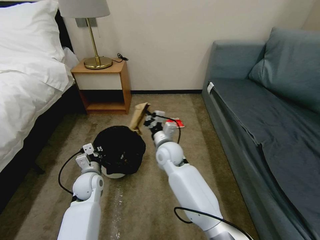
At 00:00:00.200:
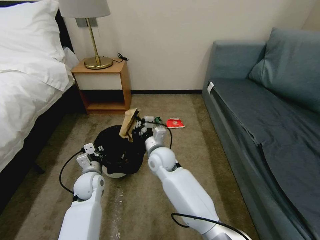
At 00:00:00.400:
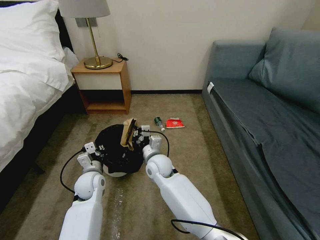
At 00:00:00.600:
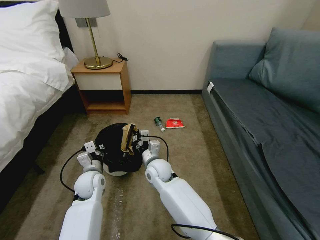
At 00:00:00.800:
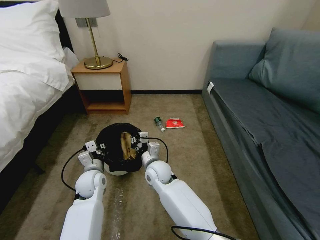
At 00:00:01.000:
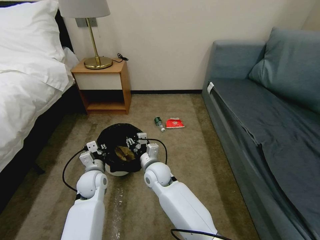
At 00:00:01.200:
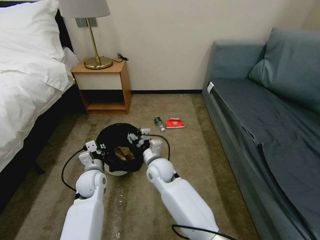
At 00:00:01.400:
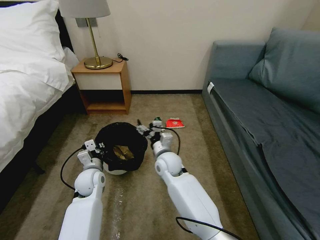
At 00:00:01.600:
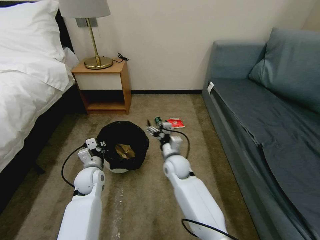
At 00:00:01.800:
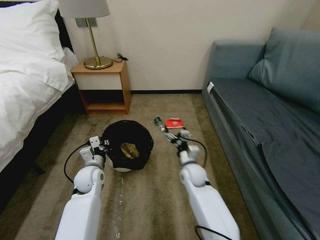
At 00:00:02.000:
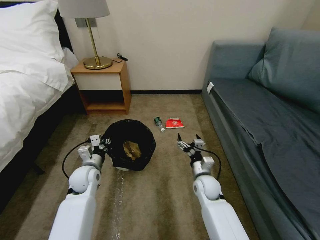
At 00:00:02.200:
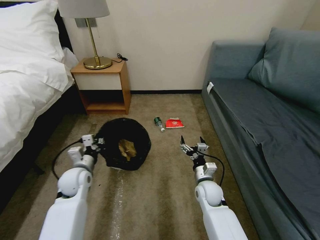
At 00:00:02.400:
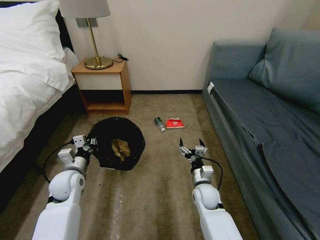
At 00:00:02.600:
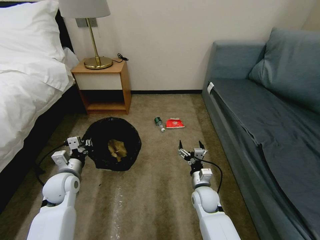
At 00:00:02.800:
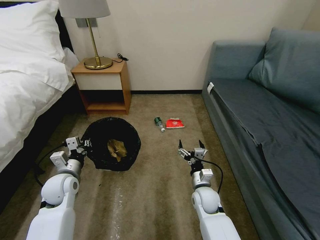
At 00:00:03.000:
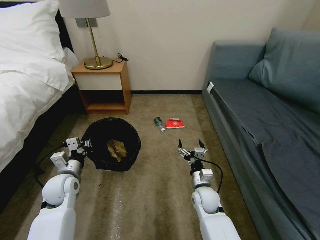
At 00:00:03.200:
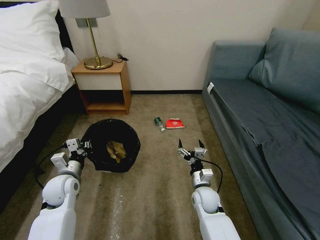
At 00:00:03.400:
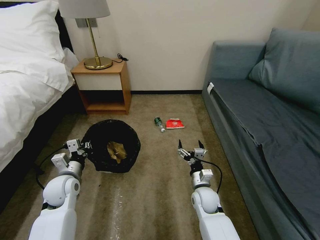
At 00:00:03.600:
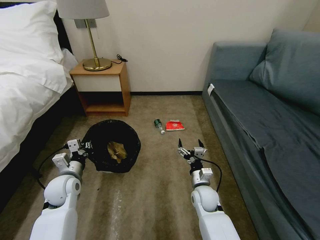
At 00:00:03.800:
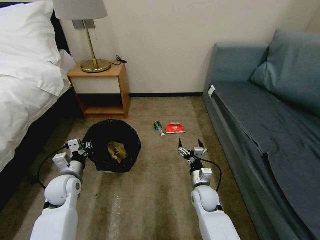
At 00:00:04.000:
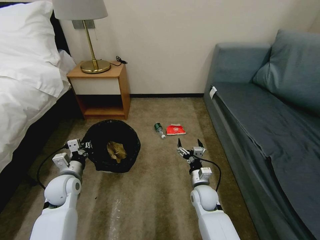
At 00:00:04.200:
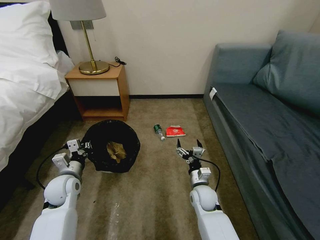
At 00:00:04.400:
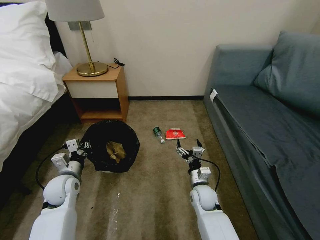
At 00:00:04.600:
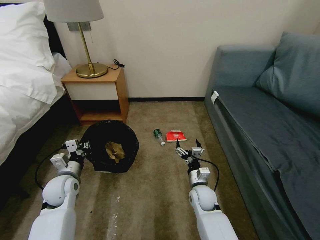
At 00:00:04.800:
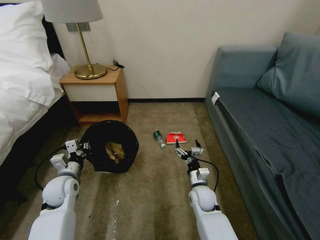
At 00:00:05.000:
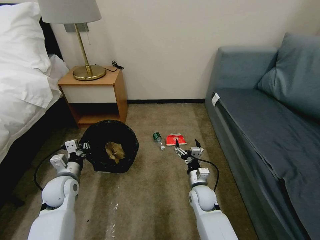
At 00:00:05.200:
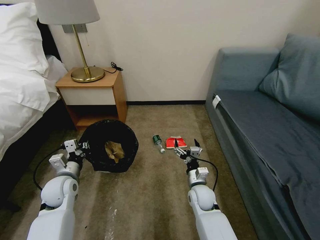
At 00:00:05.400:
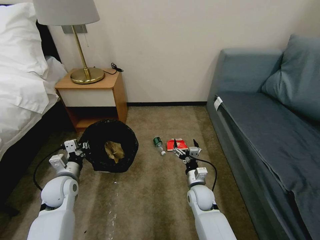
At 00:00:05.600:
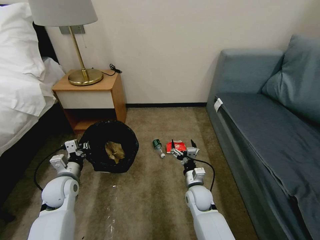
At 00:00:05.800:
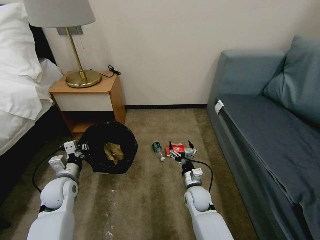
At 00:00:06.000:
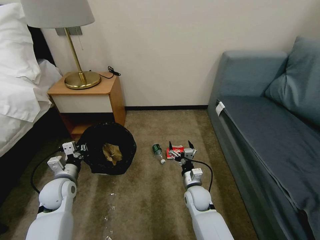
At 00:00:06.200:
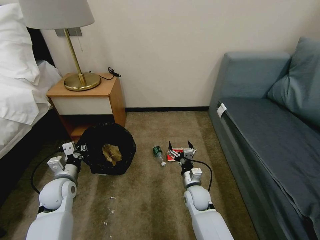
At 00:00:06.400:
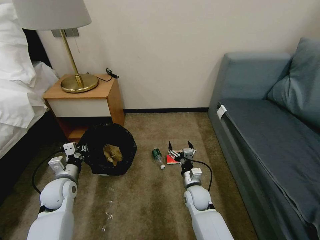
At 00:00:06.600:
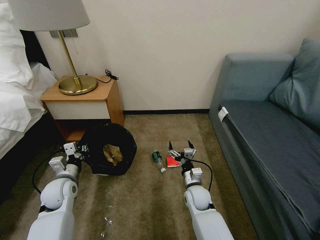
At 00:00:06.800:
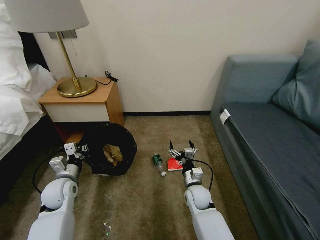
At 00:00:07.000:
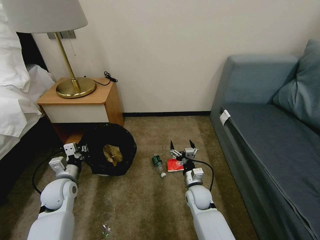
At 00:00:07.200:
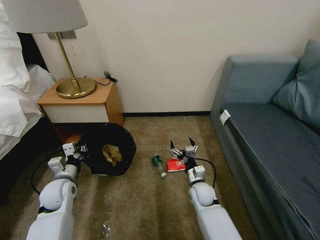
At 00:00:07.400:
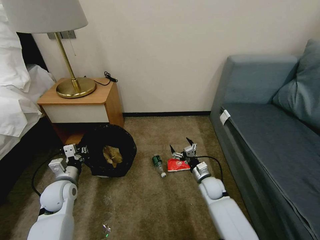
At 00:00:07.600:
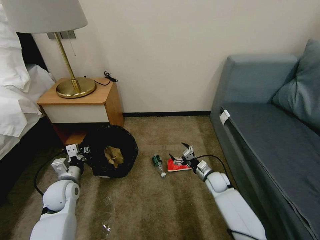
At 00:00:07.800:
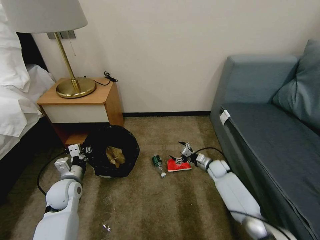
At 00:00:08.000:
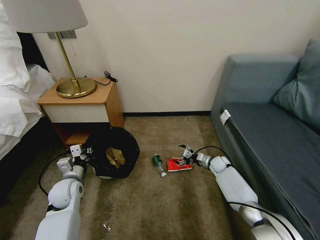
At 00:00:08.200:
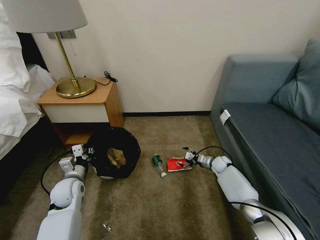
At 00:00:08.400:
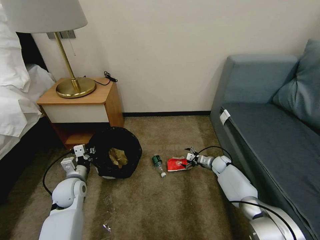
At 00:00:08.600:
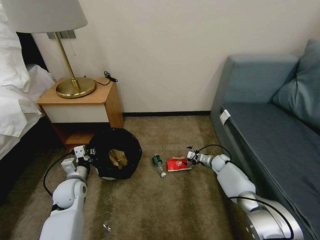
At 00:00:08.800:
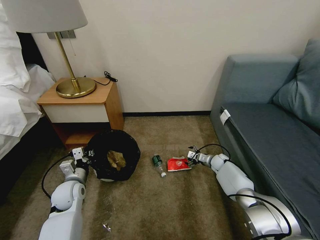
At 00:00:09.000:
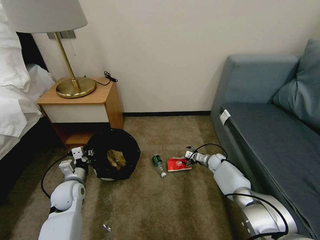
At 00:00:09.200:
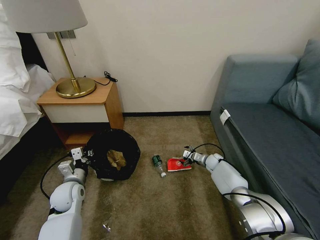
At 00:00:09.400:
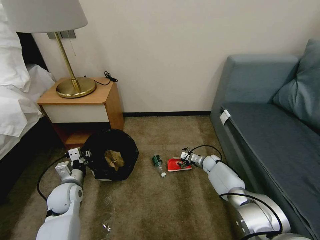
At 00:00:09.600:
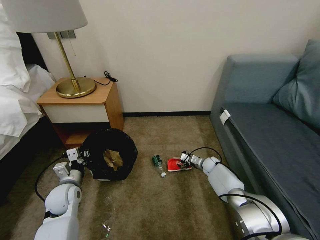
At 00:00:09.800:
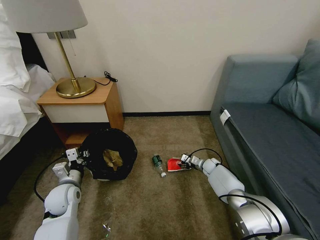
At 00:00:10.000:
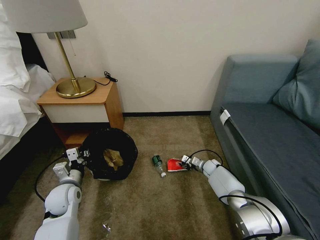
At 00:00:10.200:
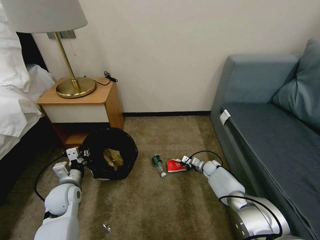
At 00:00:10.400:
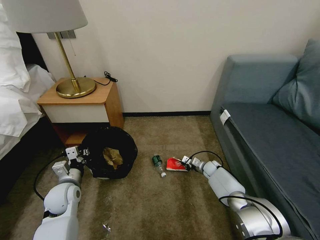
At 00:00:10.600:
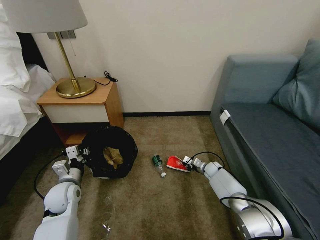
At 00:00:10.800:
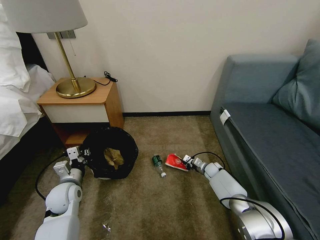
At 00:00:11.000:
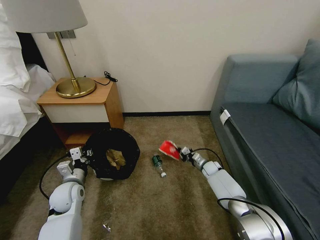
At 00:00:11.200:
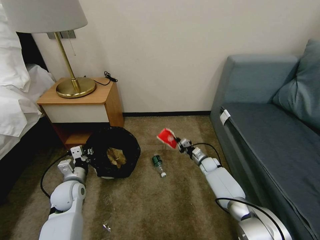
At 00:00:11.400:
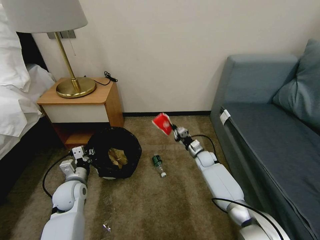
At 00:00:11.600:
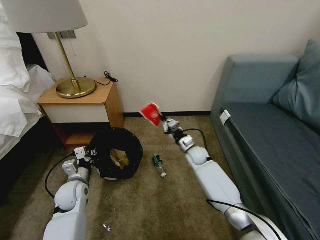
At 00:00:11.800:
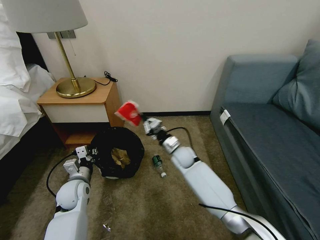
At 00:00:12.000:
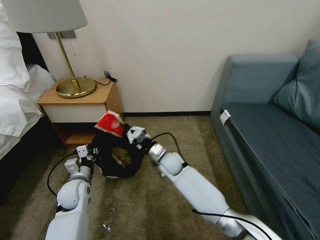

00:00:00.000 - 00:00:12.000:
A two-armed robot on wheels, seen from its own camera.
Task of the whole recording: Pick up the trash bin, then pick up the garbage on the floor and place it into the trash bin.
00:00:00.000 - 00:00:01.600: The right gripper travels downward by some 5 cm, and opens.
00:00:01.600 - 00:00:03.000: The right gripper goes approximately 15 cm to the right, backward and downward. Meanwhile the left gripper is displaced to the left by approximately 5 cm.
00:00:03.000 - 00:00:04.400: The two grippers keep their place.
00:00:06.000 - 00:00:07.600: The right gripper heads to the right and forward, covering about 15 cm.
00:00:07.600 - 00:00:09.000: The right gripper heads forward and to the right, covering about 15 cm.
00:00:09.000 - 00:00:10.400: The right gripper closes.
00:00:10.400 - 00:00:12.000: The right gripper travels to the left and upward by approximately 30 cm.

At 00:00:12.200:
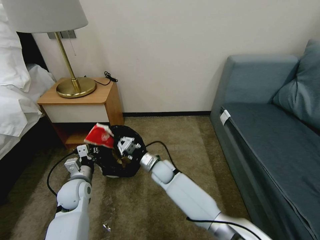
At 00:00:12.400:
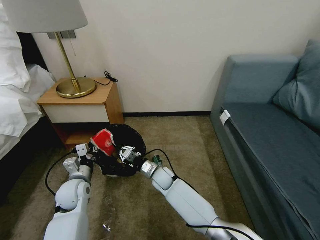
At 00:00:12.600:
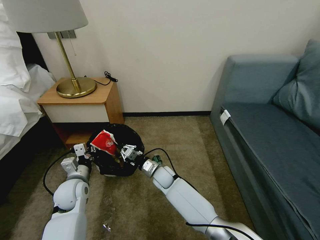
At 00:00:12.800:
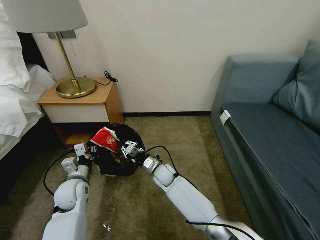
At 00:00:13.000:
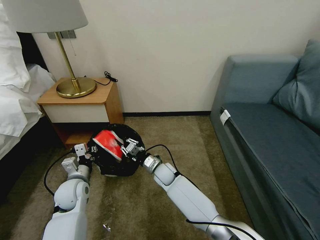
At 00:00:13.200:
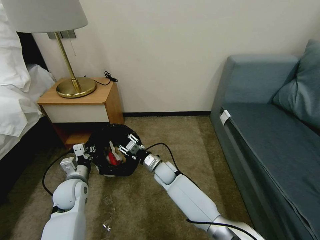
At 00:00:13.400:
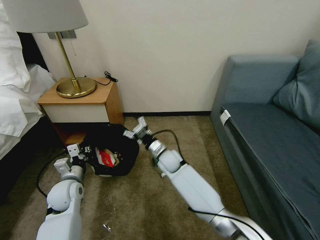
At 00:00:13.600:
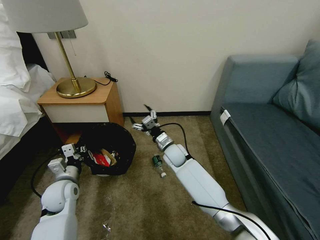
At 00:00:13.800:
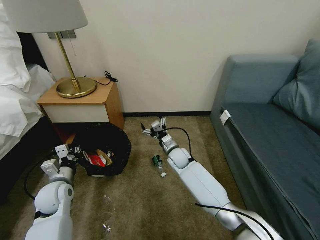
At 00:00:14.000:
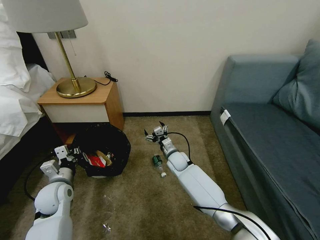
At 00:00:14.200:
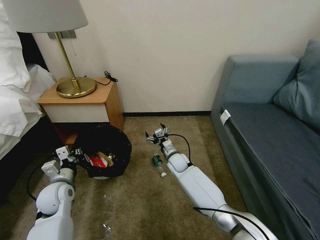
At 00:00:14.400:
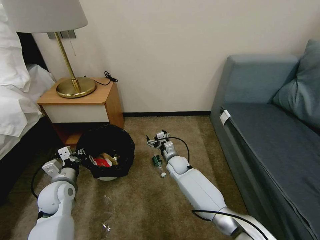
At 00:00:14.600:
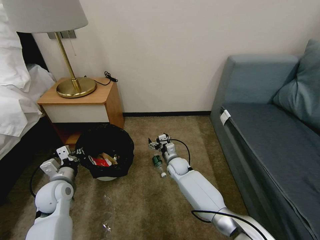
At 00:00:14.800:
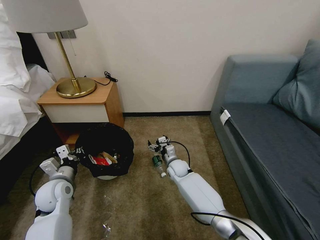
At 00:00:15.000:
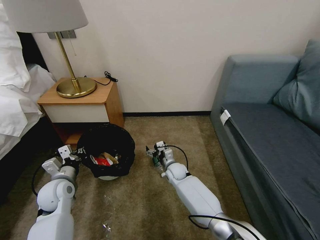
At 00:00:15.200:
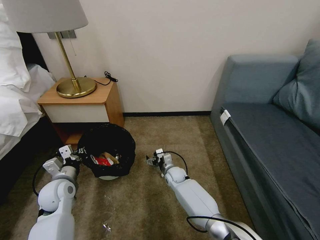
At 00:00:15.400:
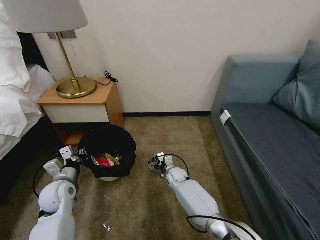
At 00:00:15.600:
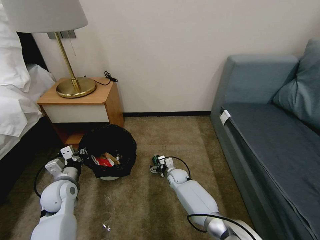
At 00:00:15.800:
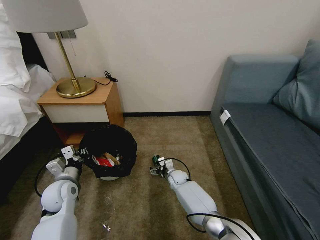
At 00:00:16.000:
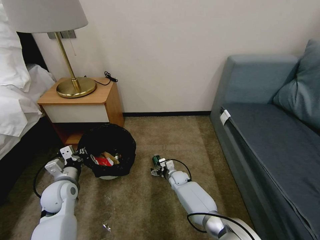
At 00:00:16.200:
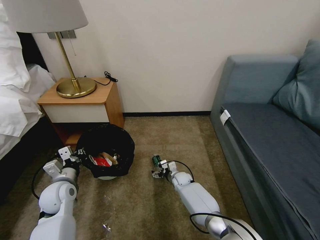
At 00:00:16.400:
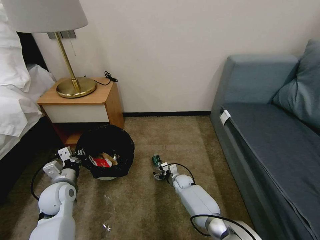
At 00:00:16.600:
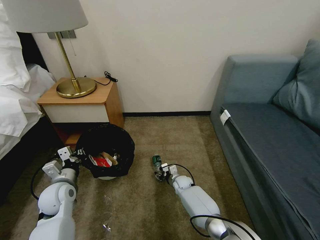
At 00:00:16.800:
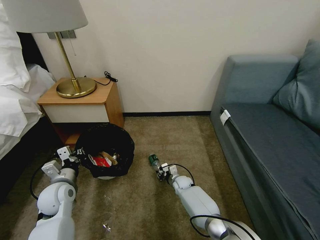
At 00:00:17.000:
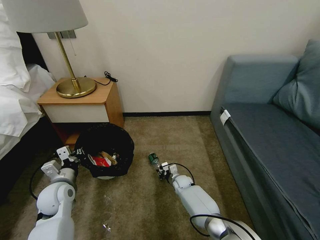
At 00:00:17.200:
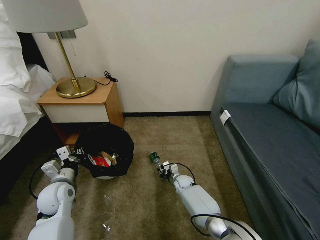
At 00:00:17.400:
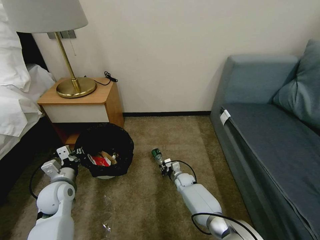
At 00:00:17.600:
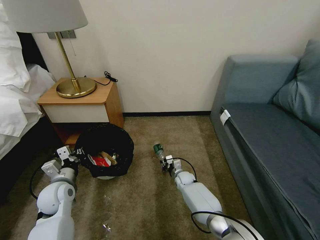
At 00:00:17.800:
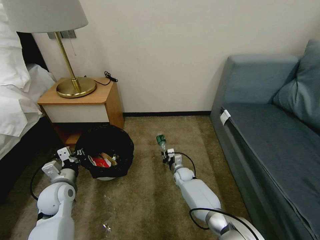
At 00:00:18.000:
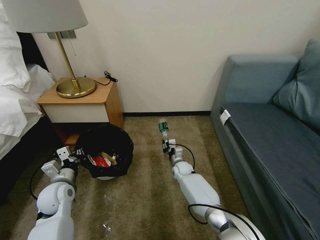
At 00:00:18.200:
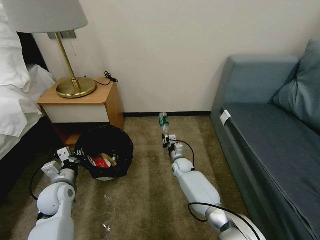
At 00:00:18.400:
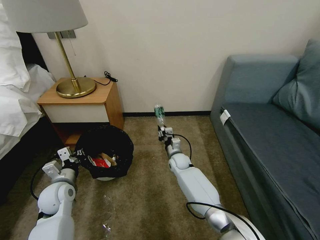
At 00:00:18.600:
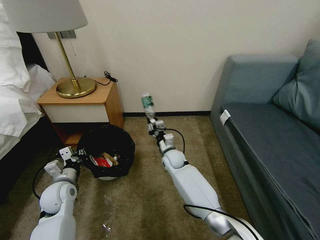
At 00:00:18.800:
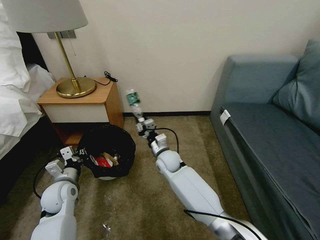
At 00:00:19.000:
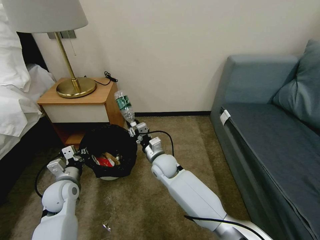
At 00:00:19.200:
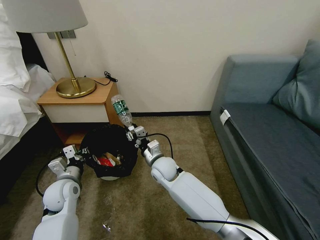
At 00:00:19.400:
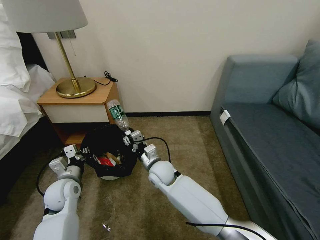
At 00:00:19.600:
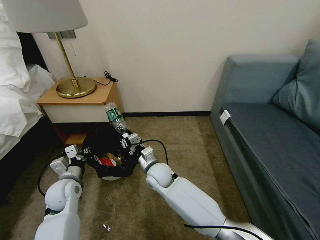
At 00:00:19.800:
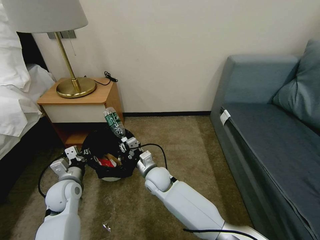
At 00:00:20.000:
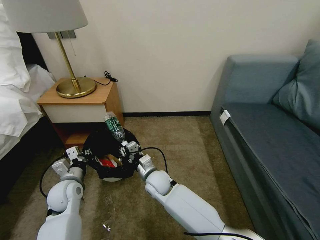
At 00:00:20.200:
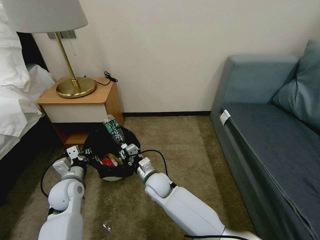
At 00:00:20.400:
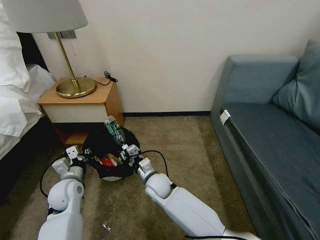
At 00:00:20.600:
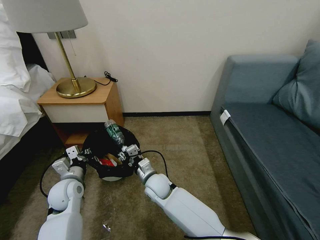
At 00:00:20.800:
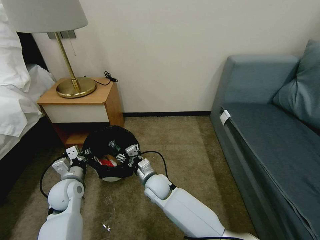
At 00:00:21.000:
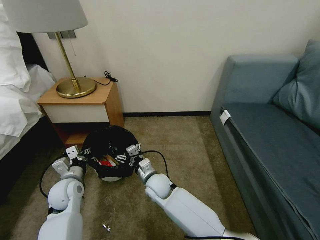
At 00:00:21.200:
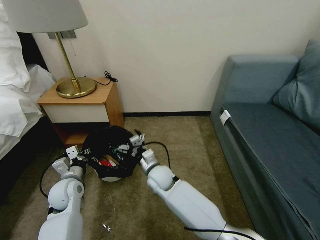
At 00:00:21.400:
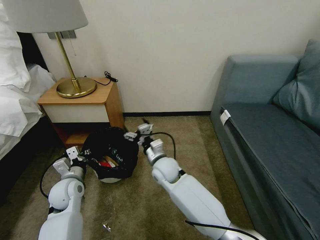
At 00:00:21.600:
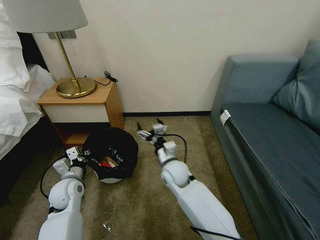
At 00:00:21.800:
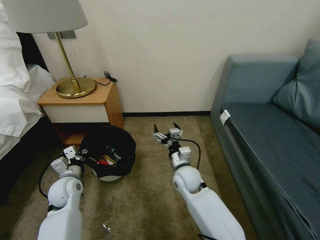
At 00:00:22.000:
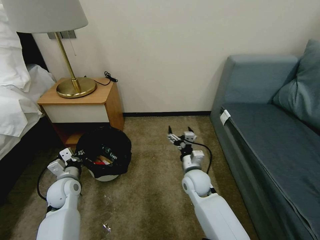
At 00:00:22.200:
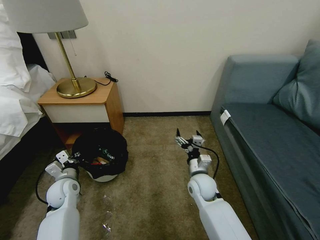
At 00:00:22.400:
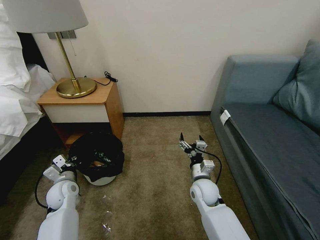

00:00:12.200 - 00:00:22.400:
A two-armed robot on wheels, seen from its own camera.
Task of the whole recording: Pick up the trash bin, then pick up the garbage on the floor and place it into the trash bin.
00:00:12.200 - 00:00:13.600: The right gripper travels to the right and forward by roughly 10 cm, and opens.
00:00:13.600 - 00:00:15.200: The right gripper shifts about 15 cm downward.
00:00:15.200 - 00:00:16.600: The right gripper moves downward, some 5 cm, and closes its fingers.
00:00:16.600 - 00:00:18.000: The right gripper shifts some 5 cm upward.
00:00:18.000 - 00:00:19.400: The right gripper moves upward, to the left and backward, approximately 20 cm.
00:00:19.400 - 00:00:21.000: The right gripper changes place by approximately 5 cm, and opens up.
00:00:21.000 - 00:00:22.400: The right gripper is displaced to the right by approximately 15 cm. The left gripper ends up about 5 cm from where it was.
